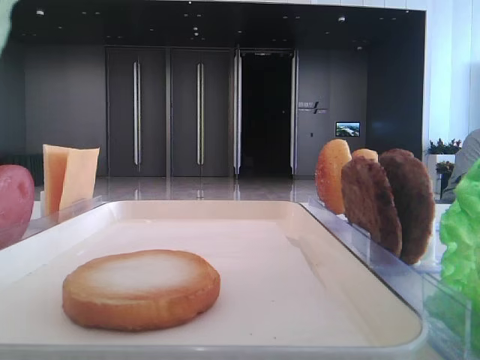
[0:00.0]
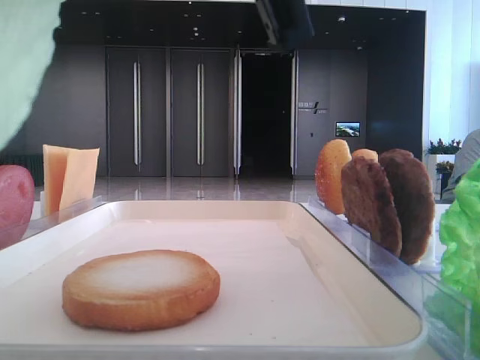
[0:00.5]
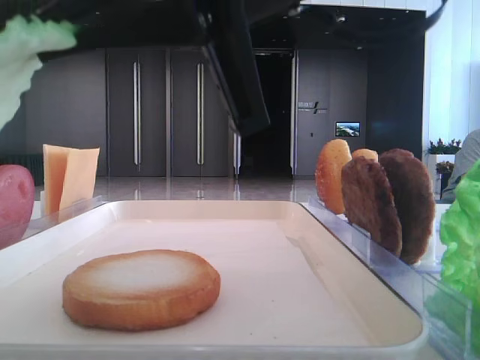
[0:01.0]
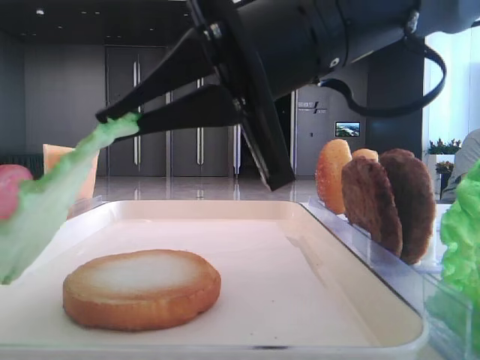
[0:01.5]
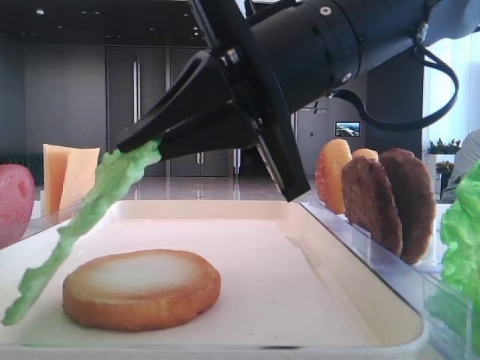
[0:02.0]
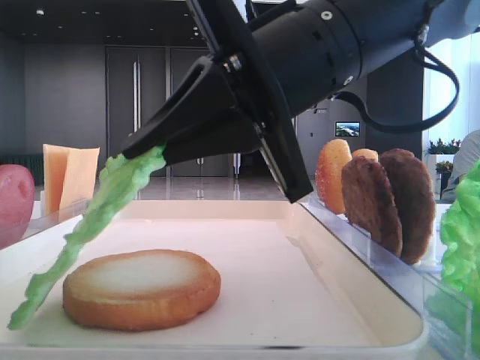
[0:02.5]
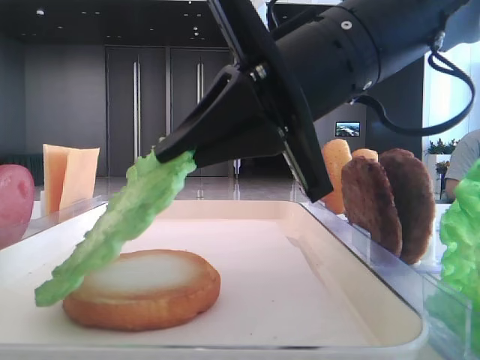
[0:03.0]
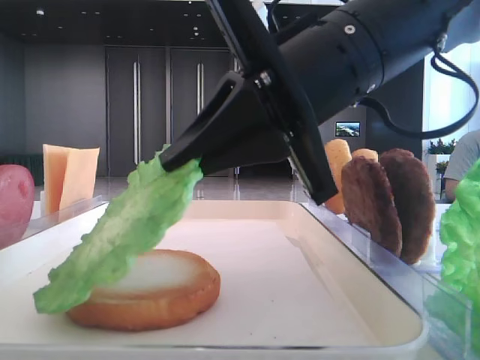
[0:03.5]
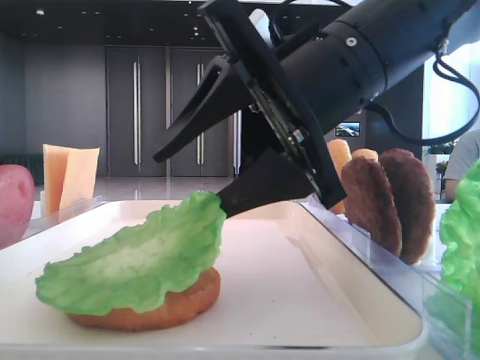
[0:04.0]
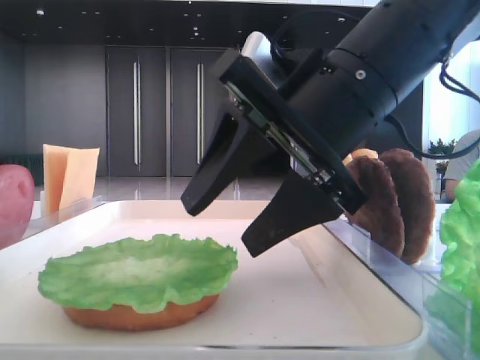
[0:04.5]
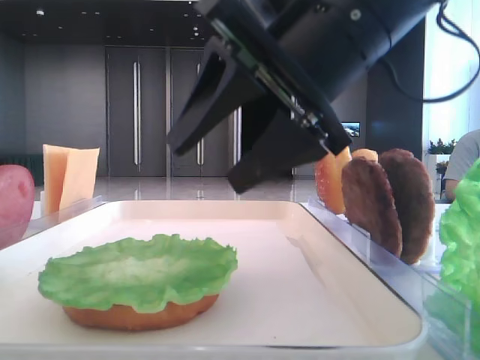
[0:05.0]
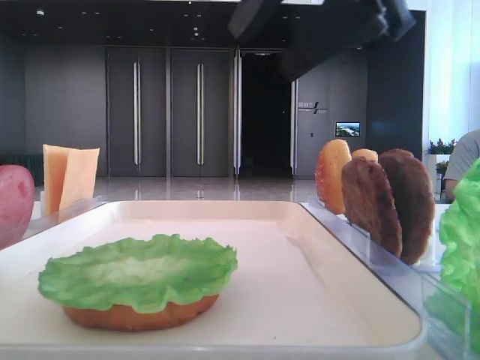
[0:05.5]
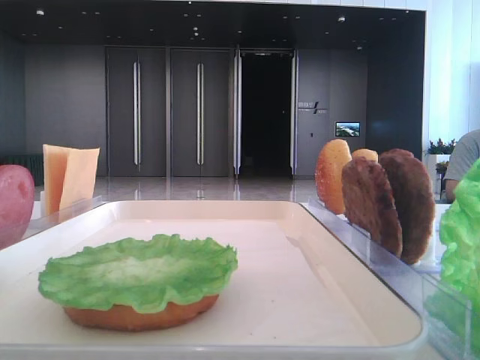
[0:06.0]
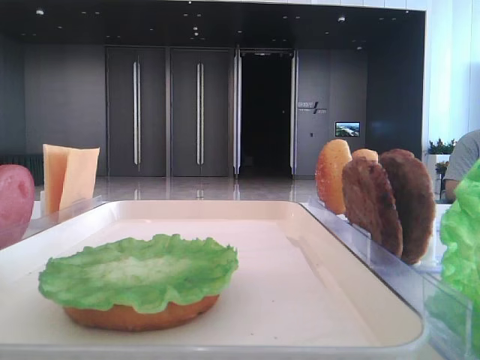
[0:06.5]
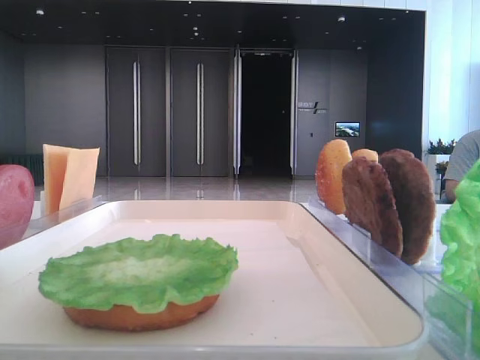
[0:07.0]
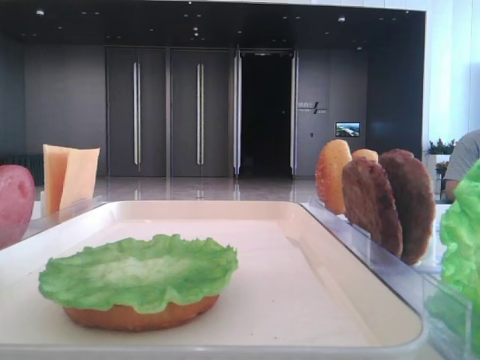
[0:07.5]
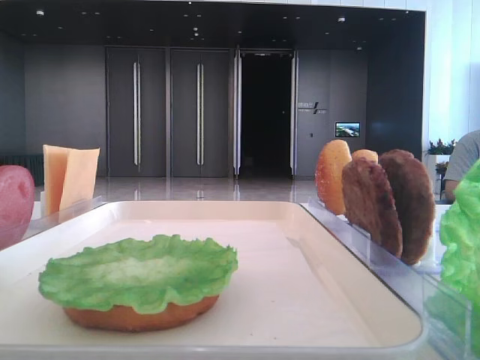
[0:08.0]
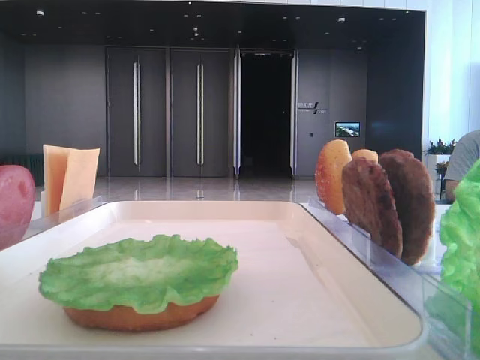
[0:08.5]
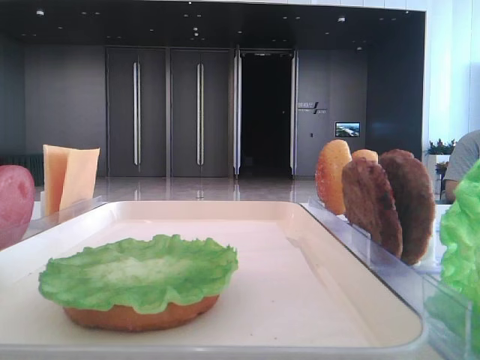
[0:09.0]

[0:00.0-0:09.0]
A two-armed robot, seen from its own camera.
Step, 0:00.0 to 0:04.0: Place the lettuce leaf on the bottom bread with the right hand.
0:00.0 to 0:02.0: The right gripper is displaced downward and forward by some 15 cm.
0:02.0 to 0:04.5: The right gripper opens.
0:04.5 to 0:07.0: The right gripper travels to the right, upward and backward by some 30 cm.

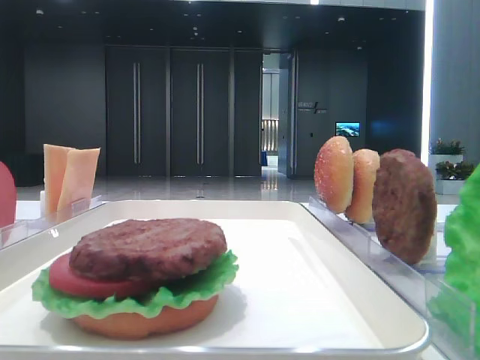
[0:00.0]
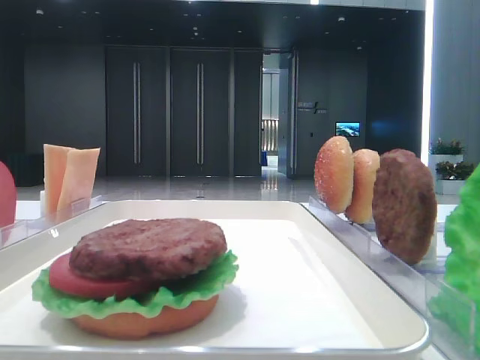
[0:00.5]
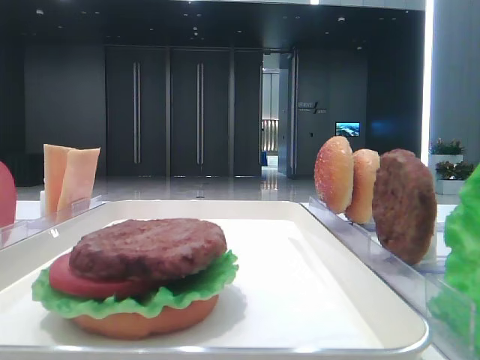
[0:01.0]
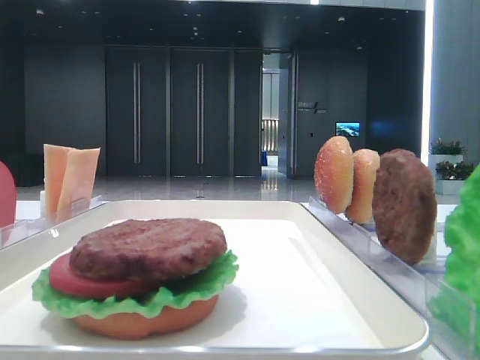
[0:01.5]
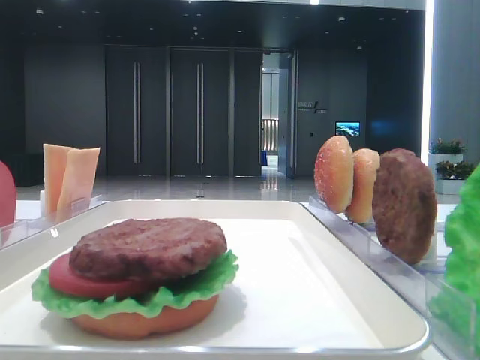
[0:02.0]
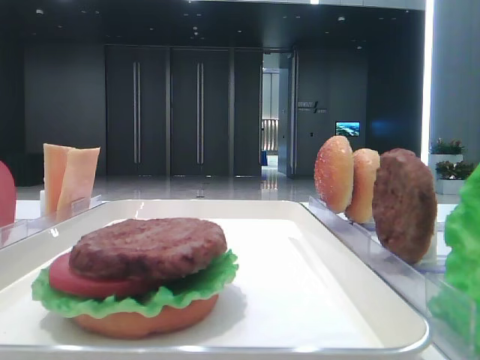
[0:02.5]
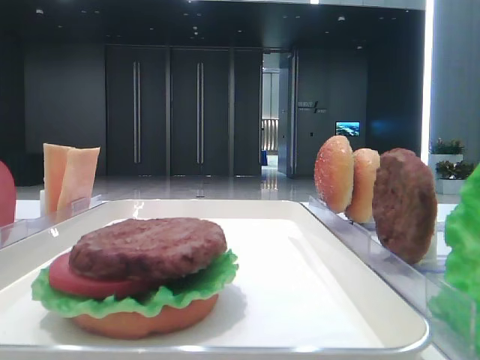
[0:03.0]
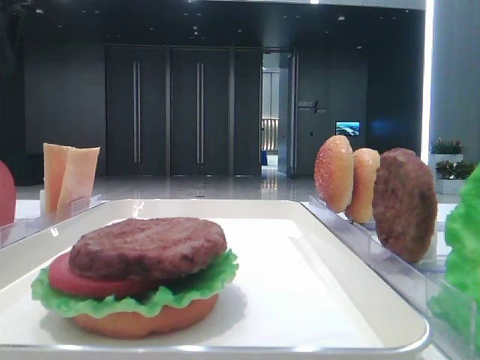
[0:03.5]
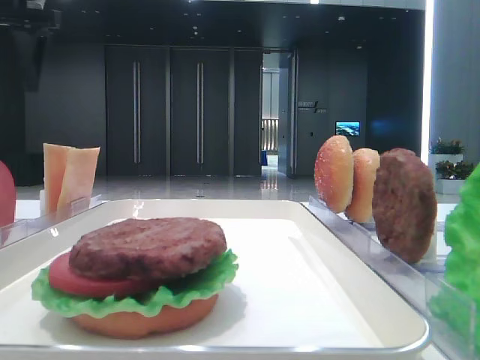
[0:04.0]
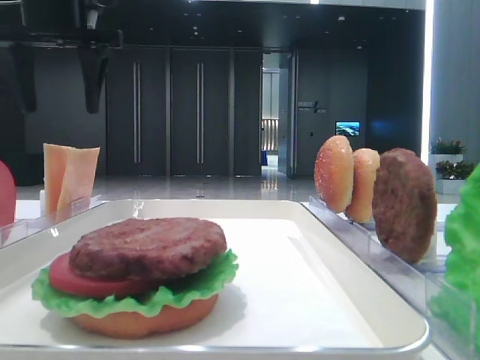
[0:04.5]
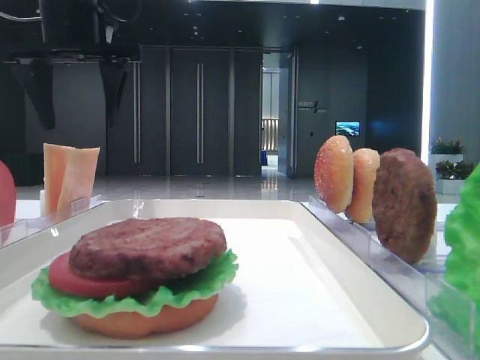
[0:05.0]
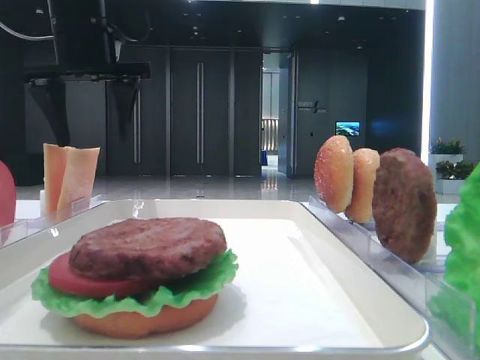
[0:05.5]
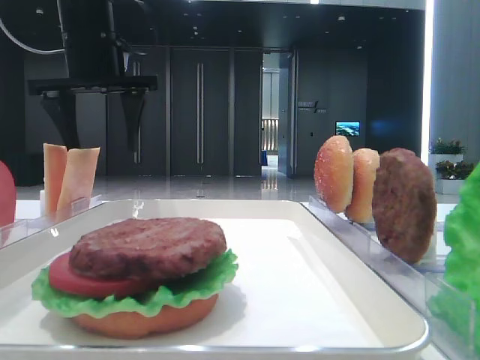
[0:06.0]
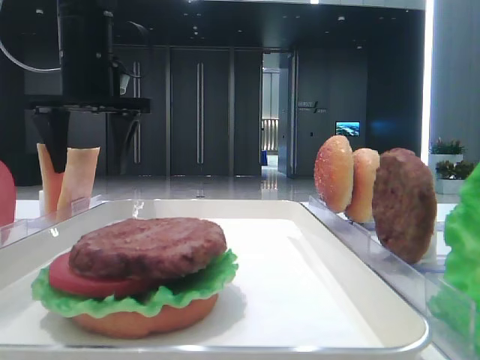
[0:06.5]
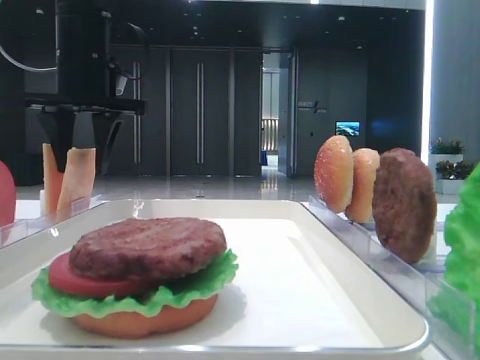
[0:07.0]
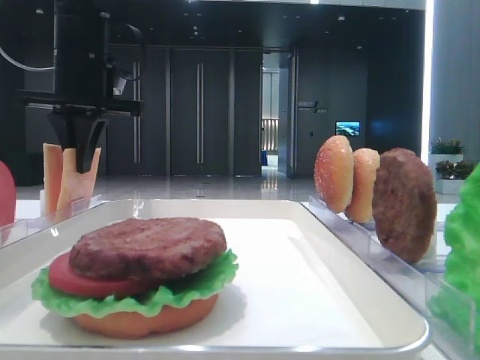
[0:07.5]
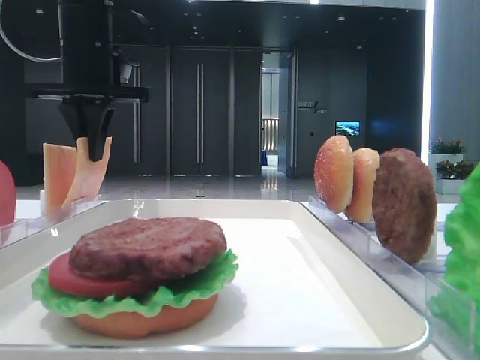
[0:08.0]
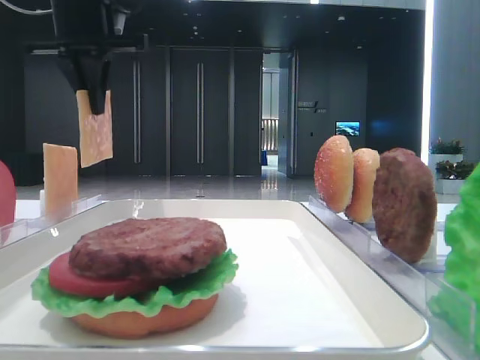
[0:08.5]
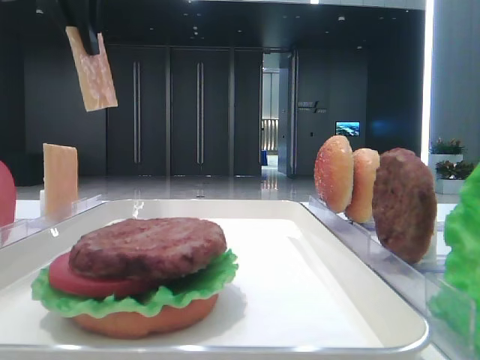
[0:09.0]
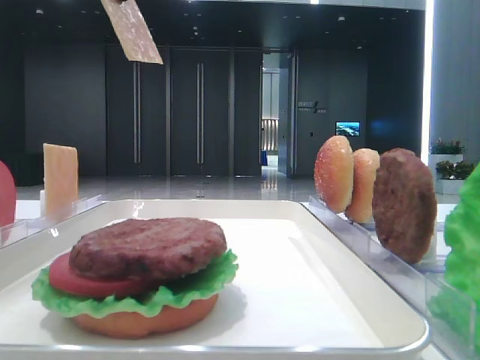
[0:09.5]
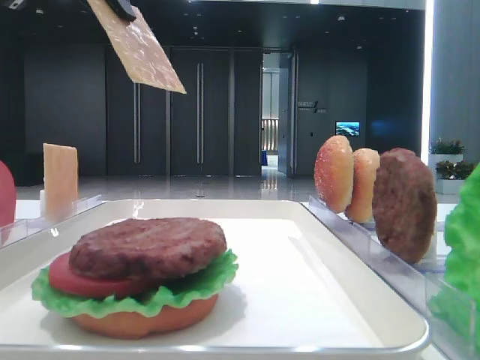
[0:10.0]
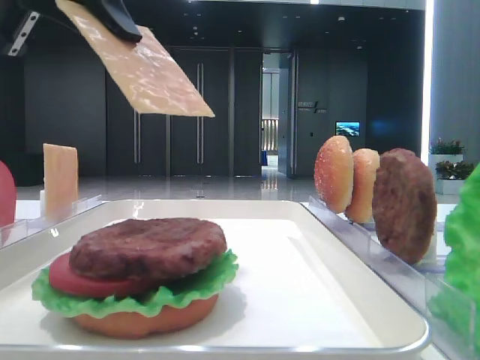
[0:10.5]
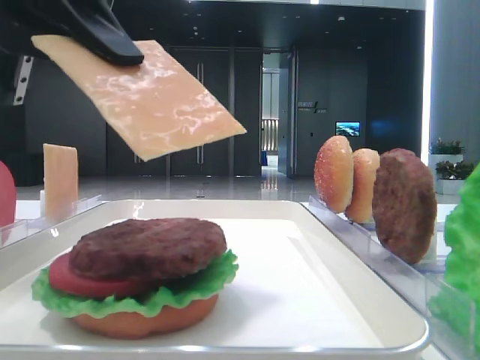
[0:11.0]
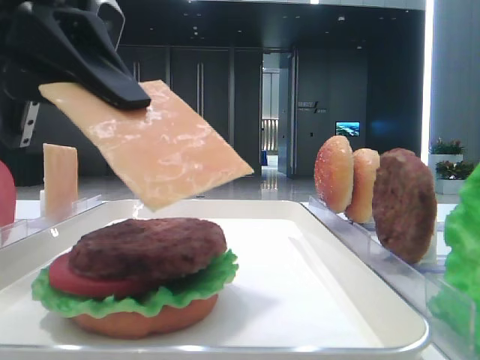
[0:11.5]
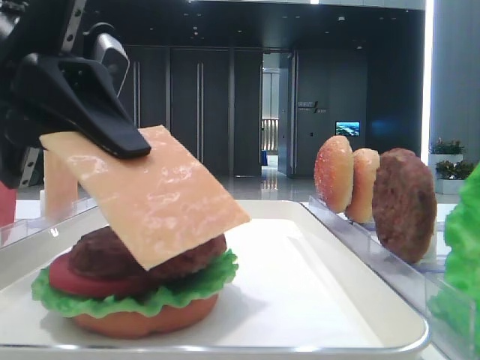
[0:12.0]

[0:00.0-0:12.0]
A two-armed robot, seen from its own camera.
Step, 0:00.0 to 0:07.5: Pick up the cheese slice with the left hand.
0:02.0 to 0:04.0: The left gripper heads forward, covering approximately 30 cm.
0:04.0 to 0:06.0: The left gripper travels to the right and downward by about 10 cm.
0:06.0 to 0:08.0: The left gripper closes its fingers.
0:08.0 to 0:10.0: The left gripper moves backward and upward, some 15 cm.
0:10.0 to 0:12.0: The left gripper shifts approximately 15 cm downward.

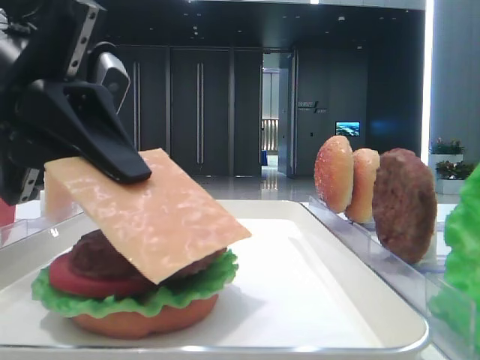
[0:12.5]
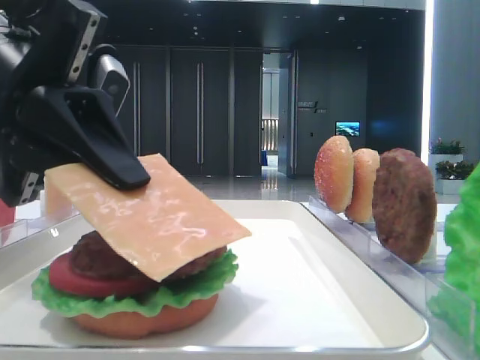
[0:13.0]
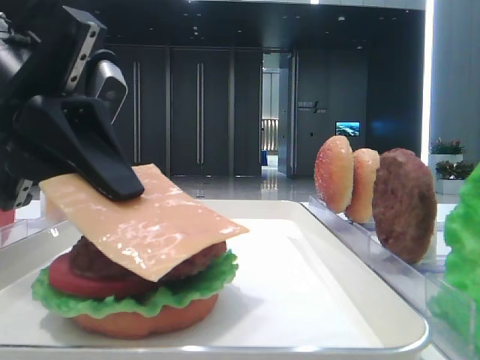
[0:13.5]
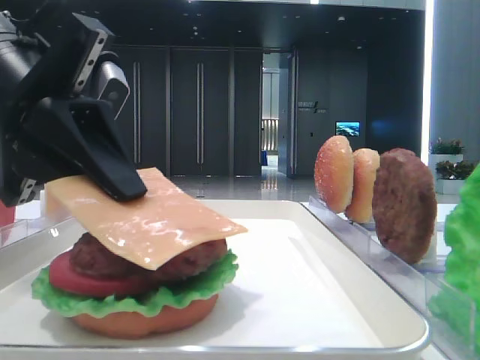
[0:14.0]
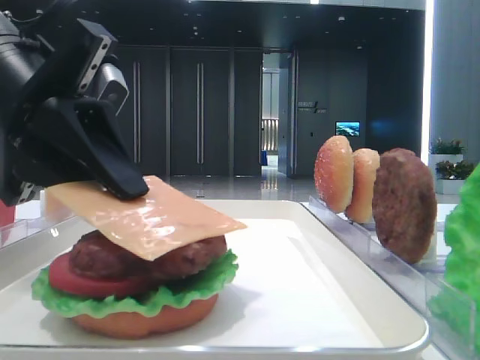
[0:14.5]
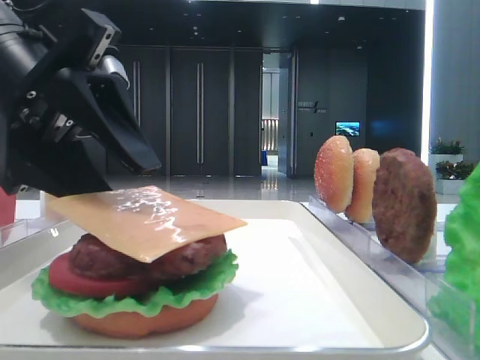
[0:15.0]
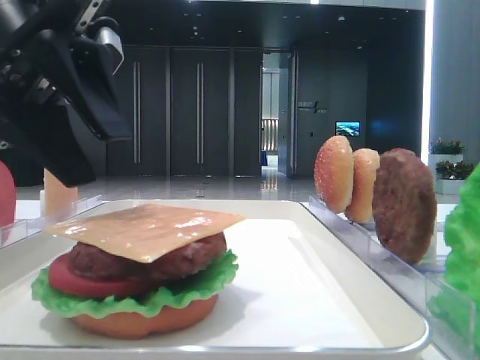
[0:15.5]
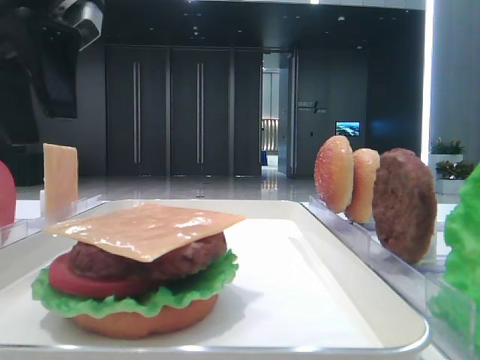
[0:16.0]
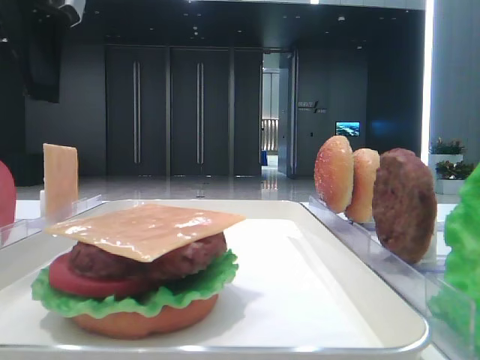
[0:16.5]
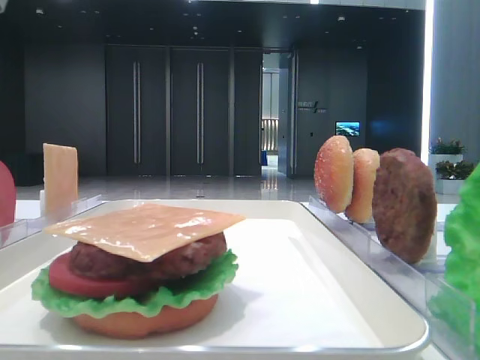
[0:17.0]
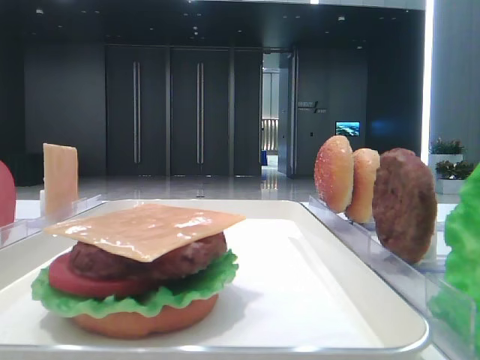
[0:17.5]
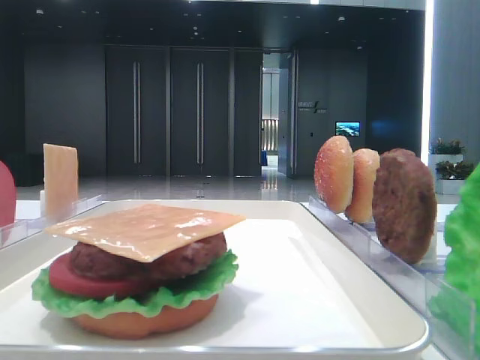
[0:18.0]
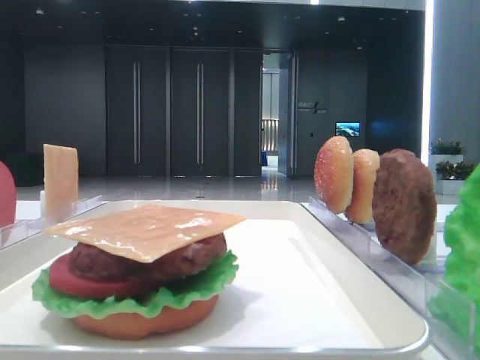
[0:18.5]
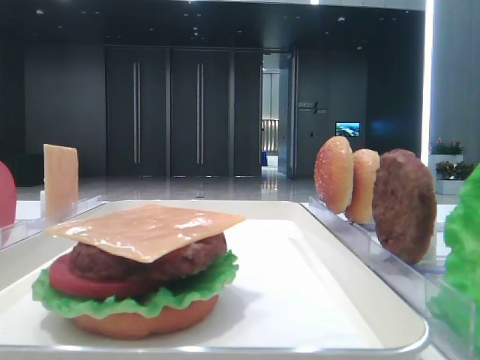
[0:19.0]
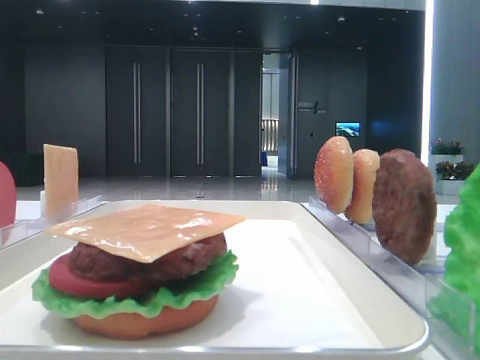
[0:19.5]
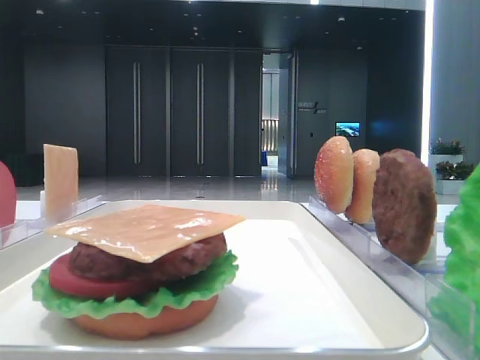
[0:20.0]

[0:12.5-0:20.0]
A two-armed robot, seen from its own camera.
Step, 0:12.5 to 0:15.0: Place the cheese slice on the patty with the left hand.
0:12.5 to 0:14.5: The grippers stay close to where they were, moving slightly.
0:14.5 to 0:16.5: The left gripper is displaced upward by approximately 10 cm, and opens.
0:16.5 to 0:18.0: The left gripper heads to the left, backward and upward, covering about 20 cm.
